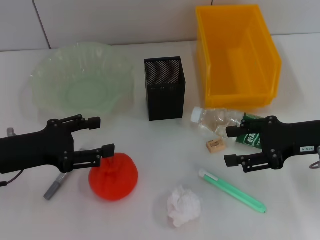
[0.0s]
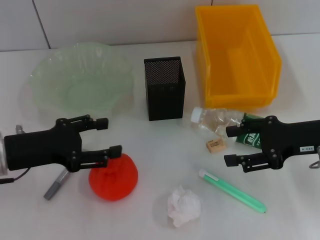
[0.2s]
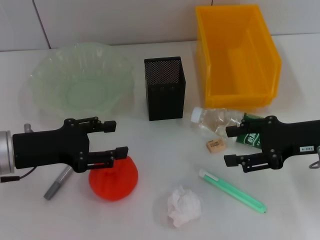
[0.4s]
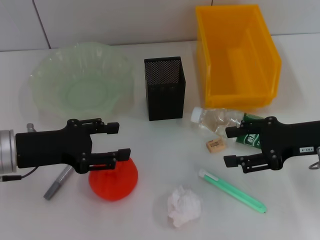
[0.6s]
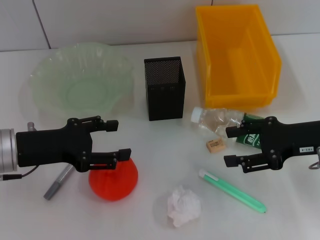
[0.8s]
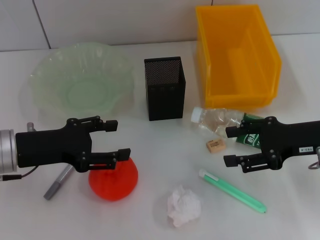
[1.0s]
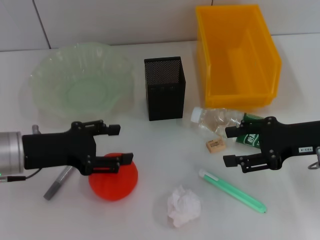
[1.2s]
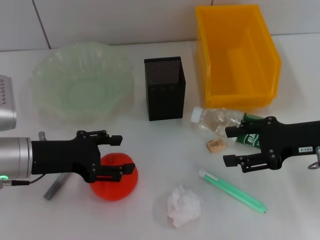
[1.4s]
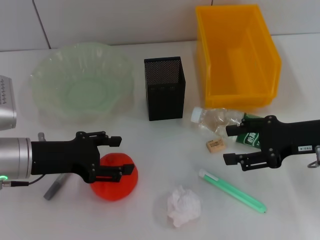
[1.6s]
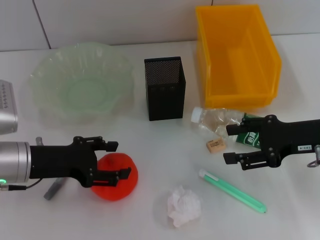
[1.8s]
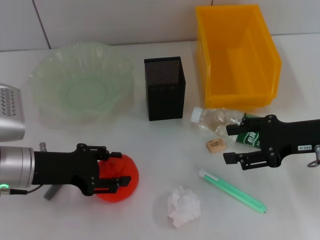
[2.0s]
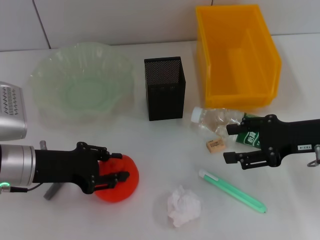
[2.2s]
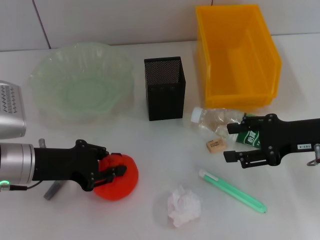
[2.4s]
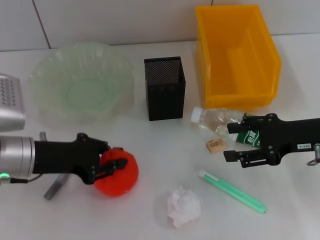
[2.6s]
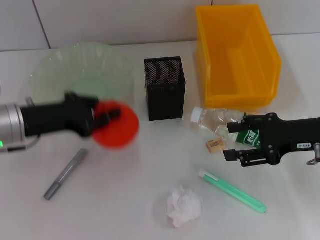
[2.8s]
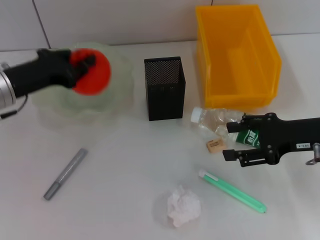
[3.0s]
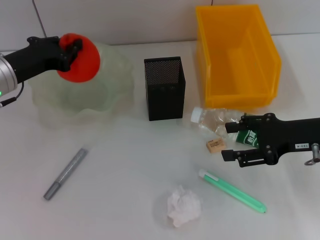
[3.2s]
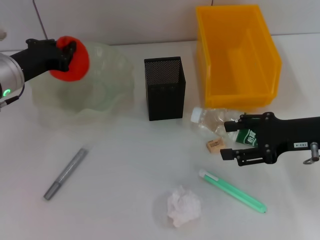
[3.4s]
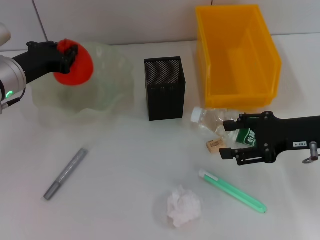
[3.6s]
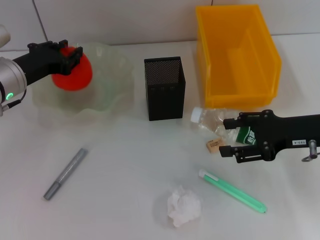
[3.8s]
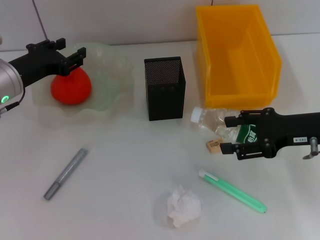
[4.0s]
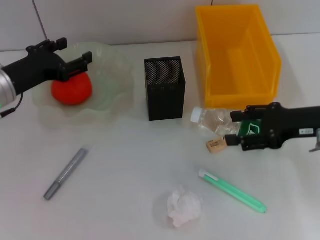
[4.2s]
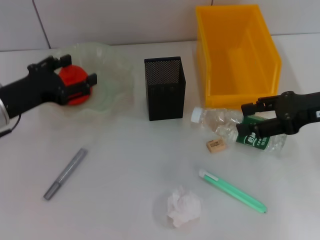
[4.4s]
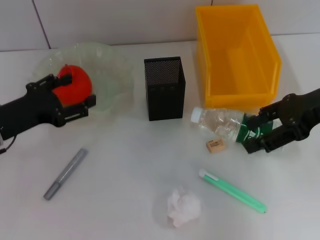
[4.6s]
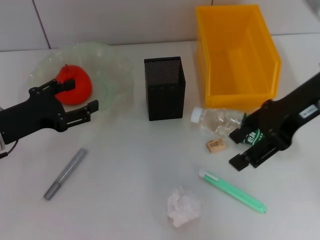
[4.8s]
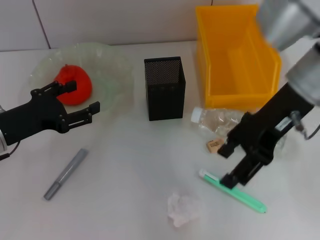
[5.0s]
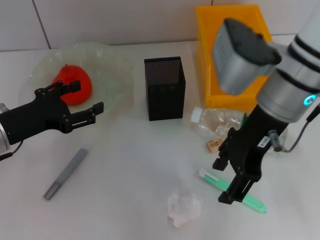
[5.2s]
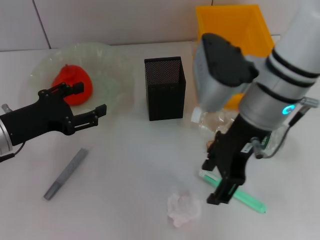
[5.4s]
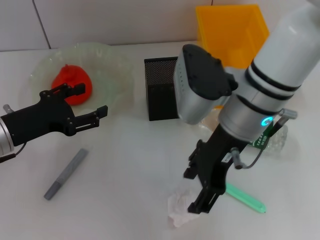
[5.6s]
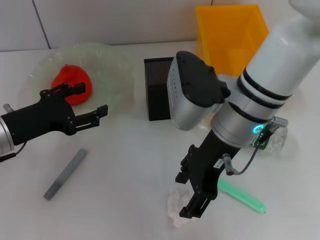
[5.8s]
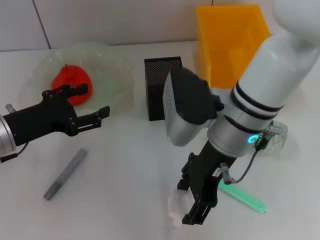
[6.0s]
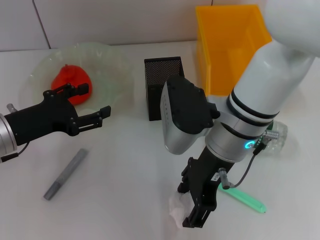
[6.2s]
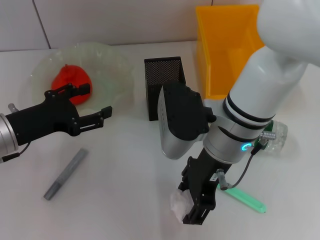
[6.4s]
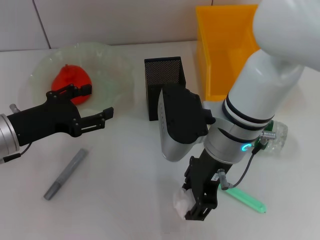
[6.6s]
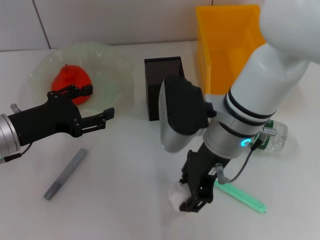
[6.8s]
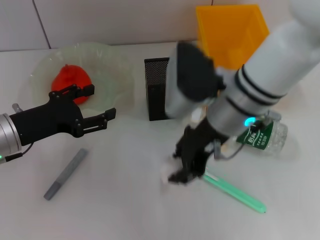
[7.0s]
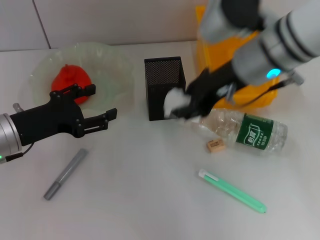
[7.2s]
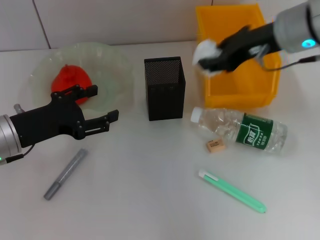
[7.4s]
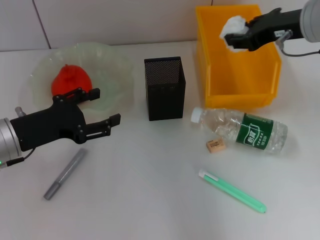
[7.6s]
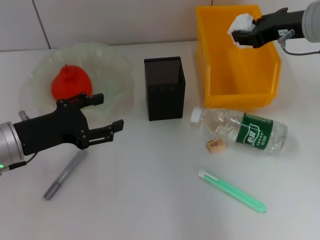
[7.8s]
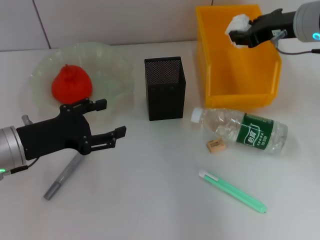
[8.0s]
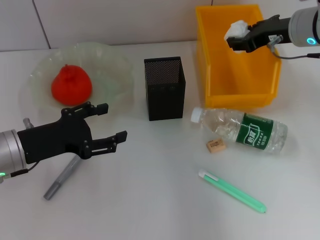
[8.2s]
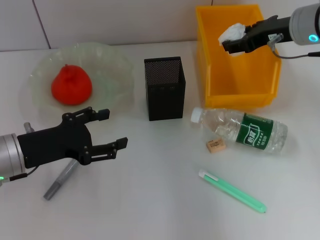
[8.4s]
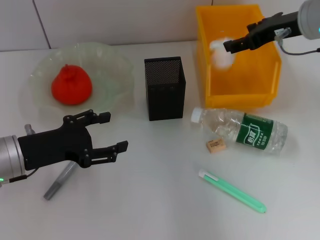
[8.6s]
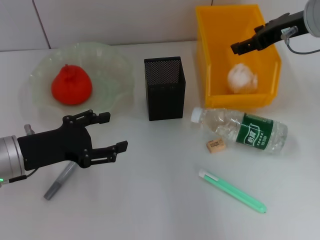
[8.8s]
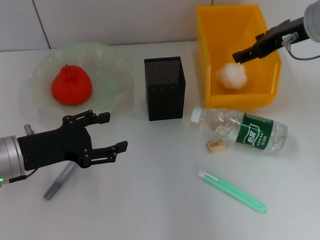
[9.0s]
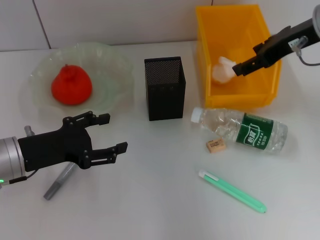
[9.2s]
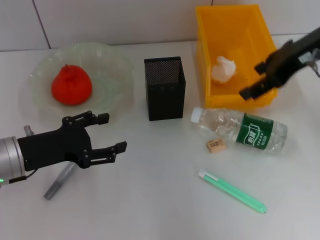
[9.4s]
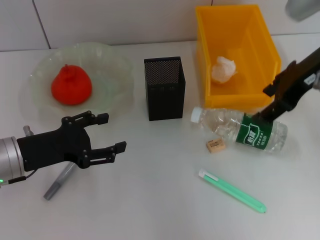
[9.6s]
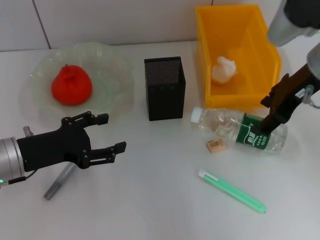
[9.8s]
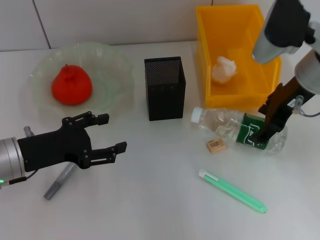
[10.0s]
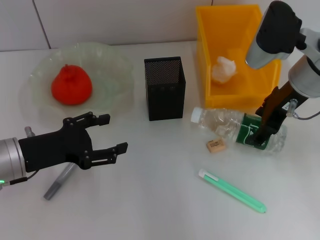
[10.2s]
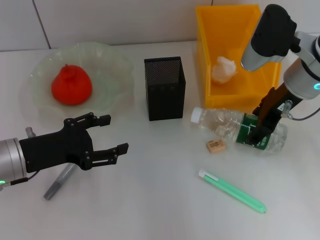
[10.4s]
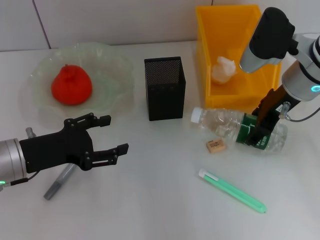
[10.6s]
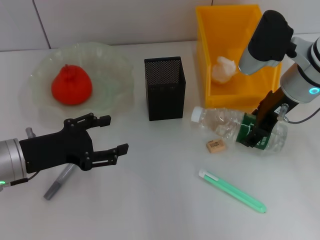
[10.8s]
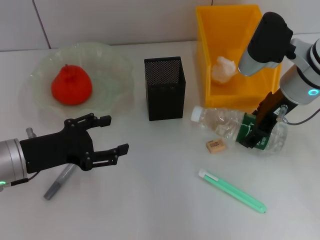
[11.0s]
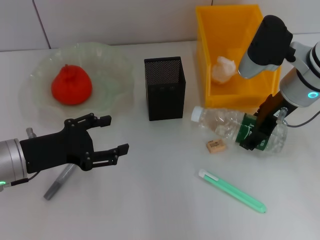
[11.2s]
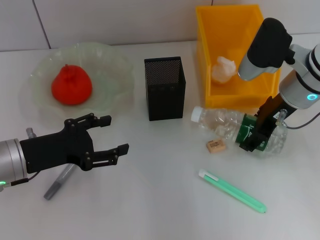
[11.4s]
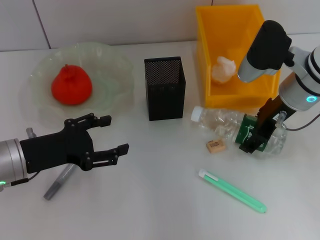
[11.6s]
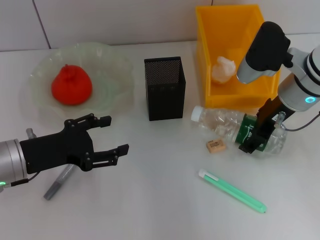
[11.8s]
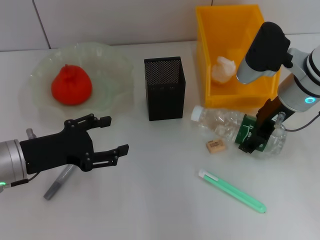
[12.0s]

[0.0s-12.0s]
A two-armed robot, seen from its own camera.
Step, 0.0s to 2.2s: Grab the orange with the left hand.
Step, 2.4s to 3.8s: Place the orange into the fruit bowl with the left hand.
Step, 4.2s to 5.8s: Grab the paper ball with the right hand.
Step, 6.0s to 8.6s: Place the paper ball into the trash can with the right hand.
0.0s to 1.6s: The grippers make only small movements.
1.6s to 3.0s: The left gripper heads forward, covering roughly 5 cm, and closes its fingers.
3.0s to 4.4s: The right gripper travels upward by roughly 5 cm. Meanwhile the left gripper opens its fingers.
4.4s to 6.0s: The left gripper goes about 5 cm backward; the right gripper is displaced to the left by some 20 cm.
6.0s to 7.6s: The right gripper moves to the right and forward, about 15 cm, and closes.
7.6s to 9.0s: The right gripper opens.
9.0s to 10.4s: The right gripper changes place by roughly 5 cm.
10.4s to 12.0s: The grippers make only small movements.

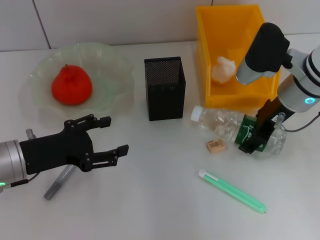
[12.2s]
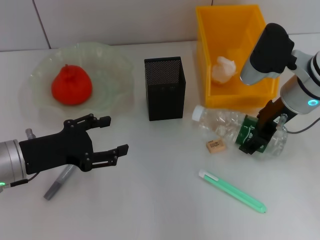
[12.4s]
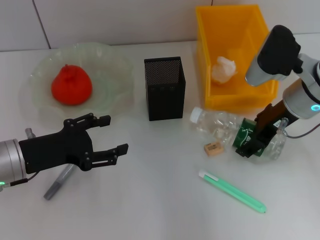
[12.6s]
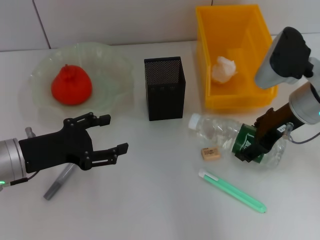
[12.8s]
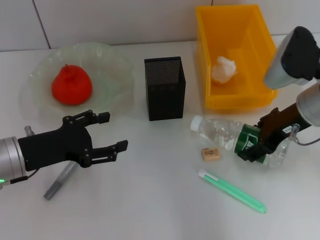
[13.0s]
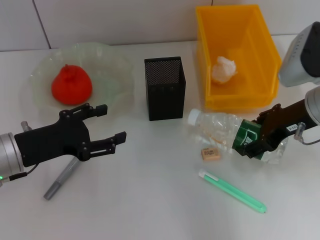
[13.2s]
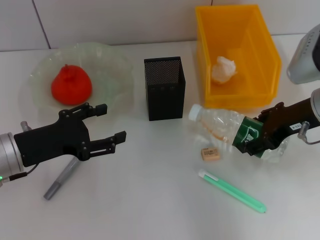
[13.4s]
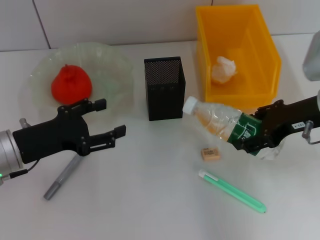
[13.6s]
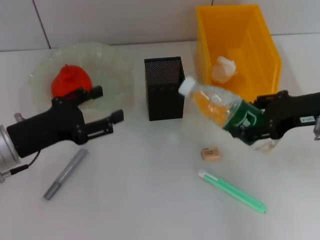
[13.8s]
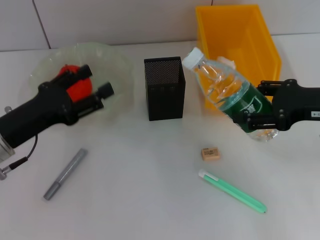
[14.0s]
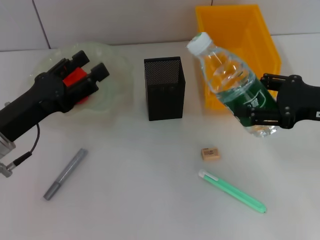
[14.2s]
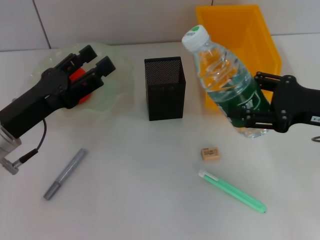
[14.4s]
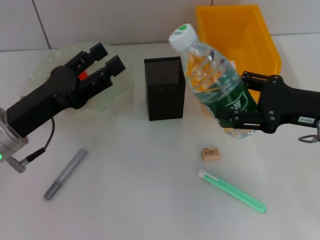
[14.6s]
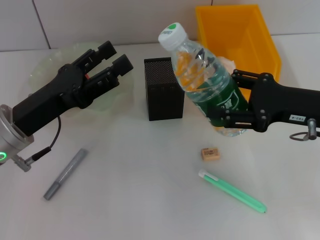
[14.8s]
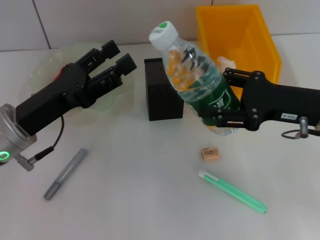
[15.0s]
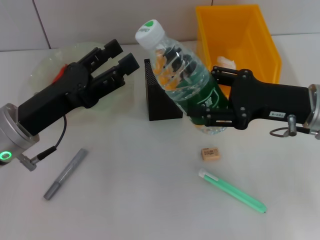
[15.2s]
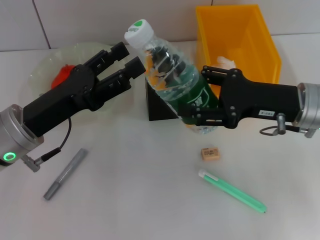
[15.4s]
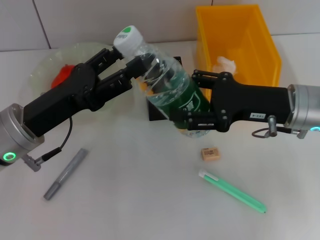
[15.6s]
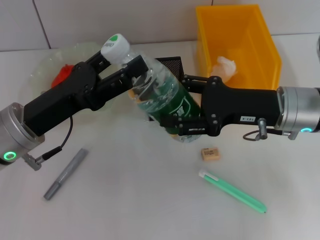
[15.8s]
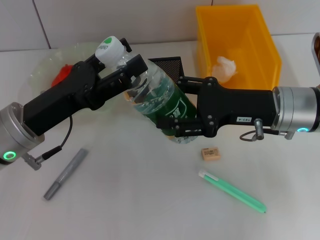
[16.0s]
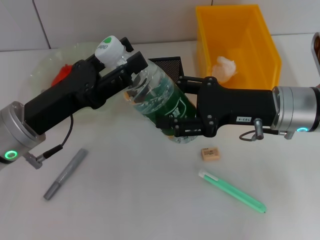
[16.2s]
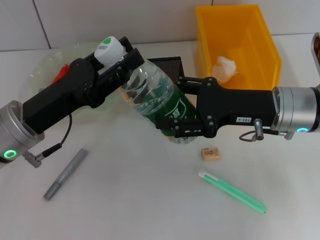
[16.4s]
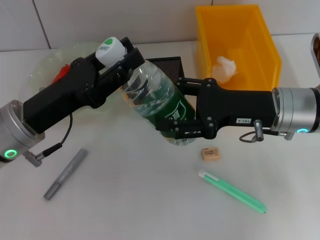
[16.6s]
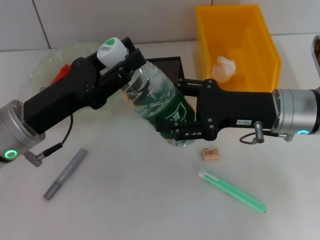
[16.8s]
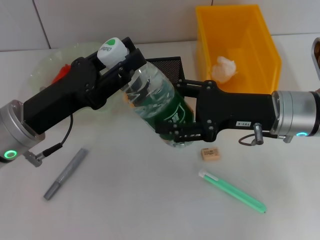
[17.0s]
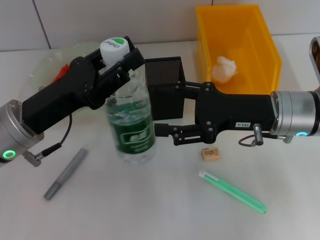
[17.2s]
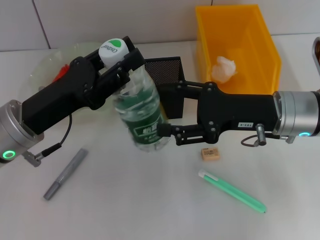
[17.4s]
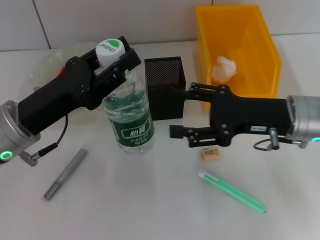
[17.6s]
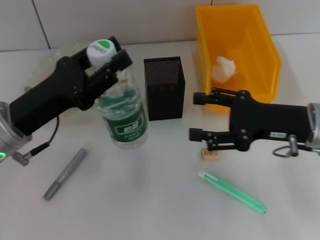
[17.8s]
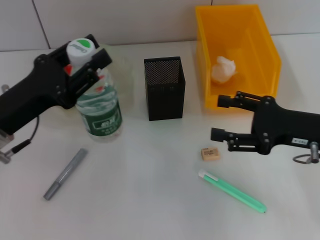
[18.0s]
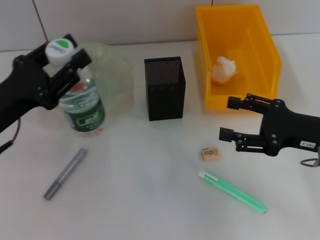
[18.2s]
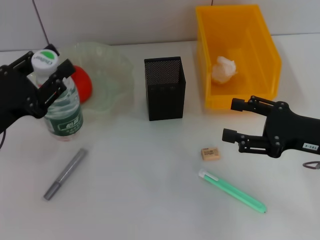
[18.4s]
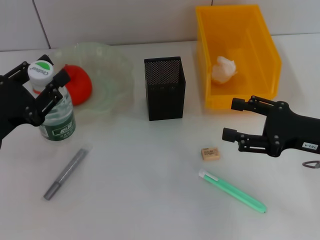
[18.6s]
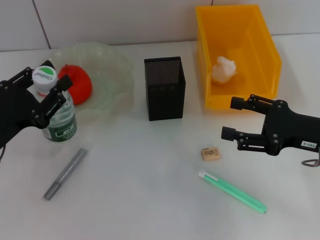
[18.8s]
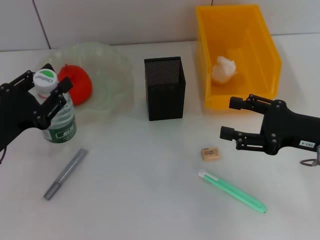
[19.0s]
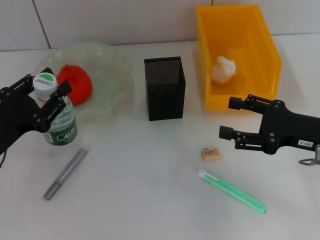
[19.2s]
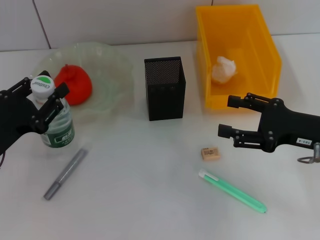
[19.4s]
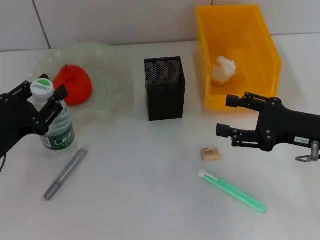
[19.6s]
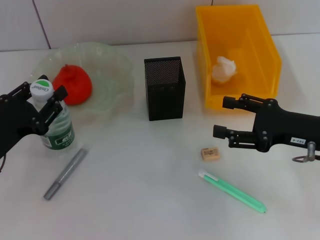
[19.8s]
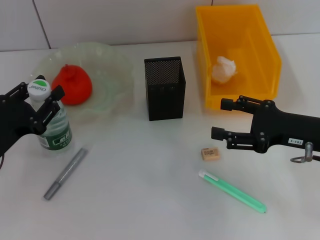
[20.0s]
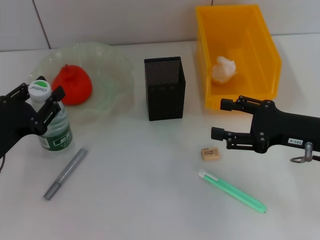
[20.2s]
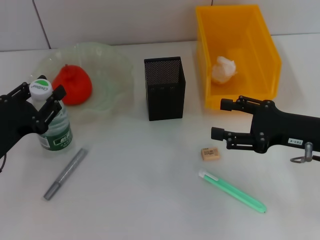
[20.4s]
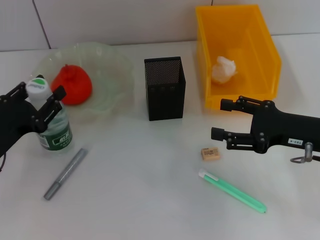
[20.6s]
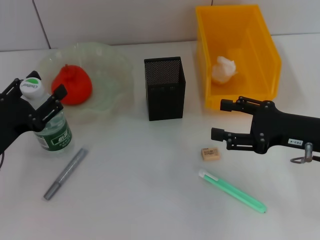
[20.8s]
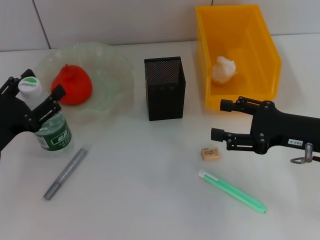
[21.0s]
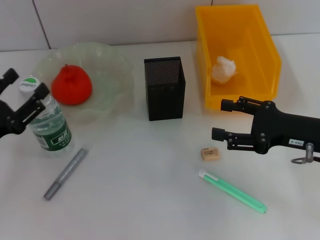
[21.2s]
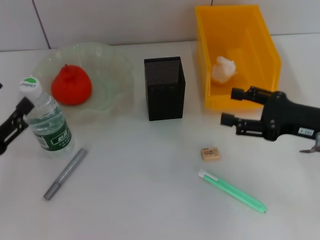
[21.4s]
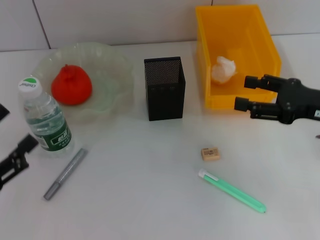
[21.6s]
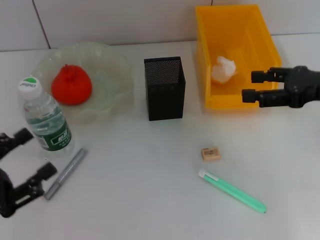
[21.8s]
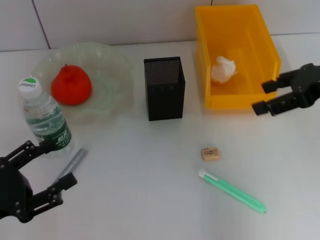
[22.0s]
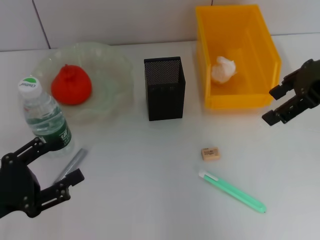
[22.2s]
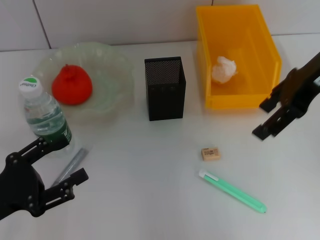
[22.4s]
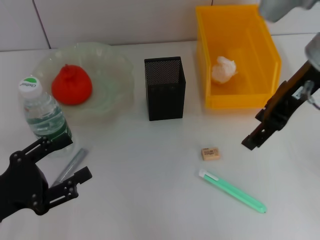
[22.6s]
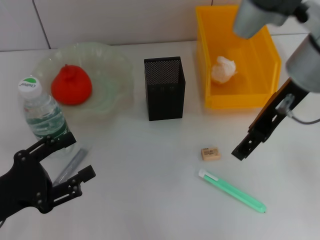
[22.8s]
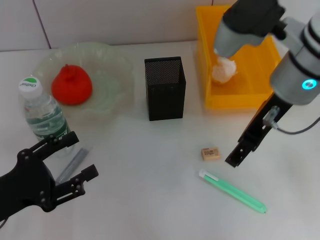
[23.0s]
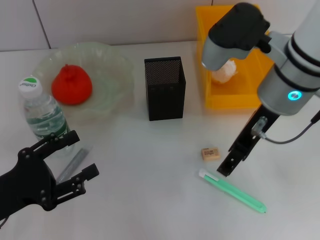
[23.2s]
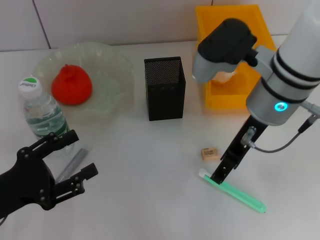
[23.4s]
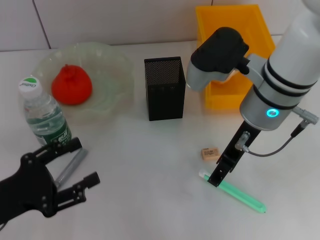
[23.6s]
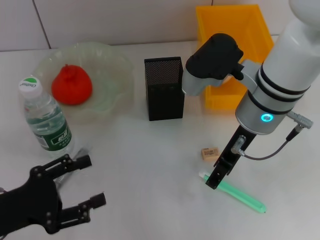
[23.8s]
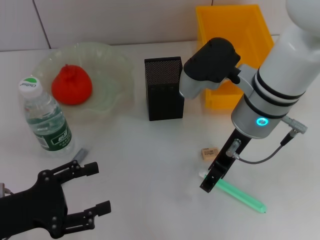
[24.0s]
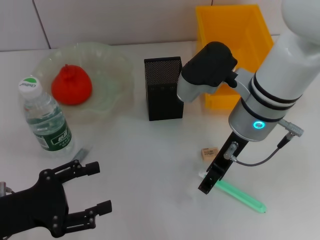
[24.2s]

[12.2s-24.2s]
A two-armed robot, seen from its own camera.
Step, 12.4s to 17.0s: Pass the water bottle from the right hand to the left hand.
Step, 17.2s to 20.8s: Place the water bottle on the table with the left hand.
12.2s to 13.8s: The right gripper is displaced backward and to the right by roughly 10 cm.
15.2s to 16.6s: The left gripper closes.
16.6s to 18.2s: The right gripper goes about 10 cm to the right and backward. Meanwhile the left gripper is displaced to the left by approximately 5 cm.
18.2s to 19.8s: The left gripper goes roughly 5 cm downward.
19.8s to 21.2s: The left gripper opens up.
21.2s to 22.6s: The right gripper travels upward, to the left and forward by about 20 cm.
22.6s to 24.2s: The right gripper shifts approximately 10 cm downward and to the left.
